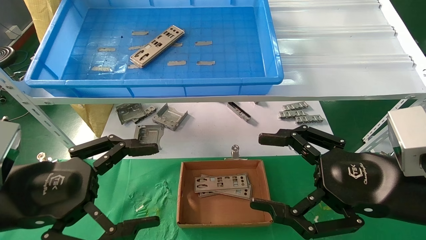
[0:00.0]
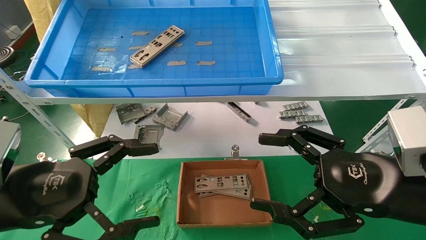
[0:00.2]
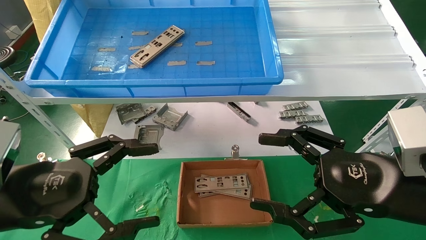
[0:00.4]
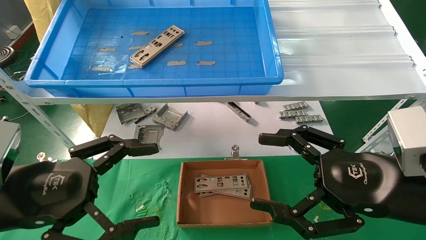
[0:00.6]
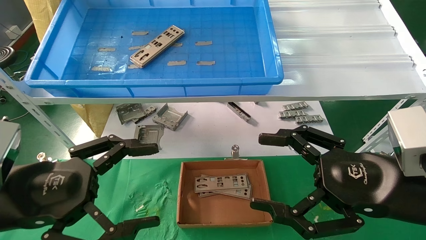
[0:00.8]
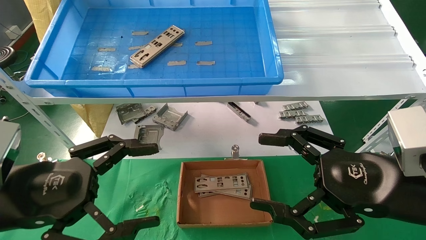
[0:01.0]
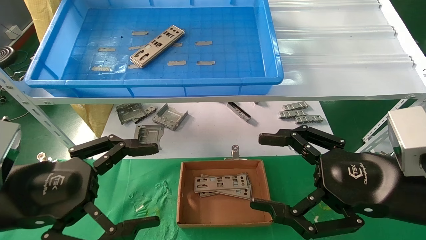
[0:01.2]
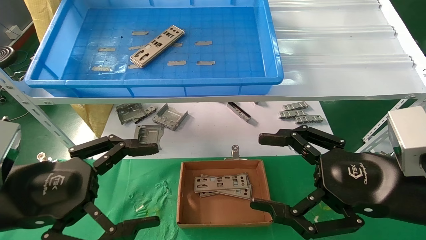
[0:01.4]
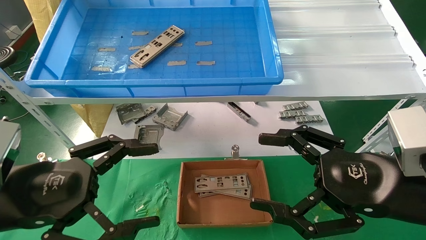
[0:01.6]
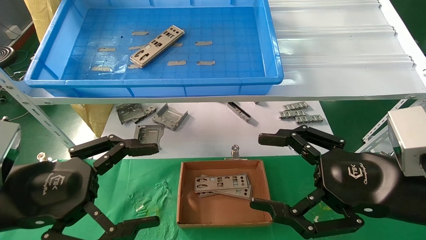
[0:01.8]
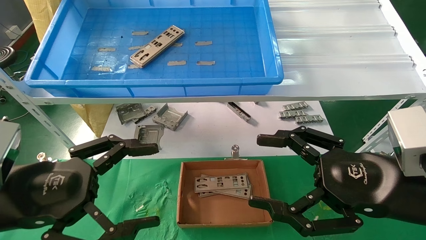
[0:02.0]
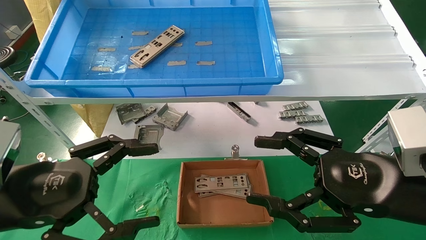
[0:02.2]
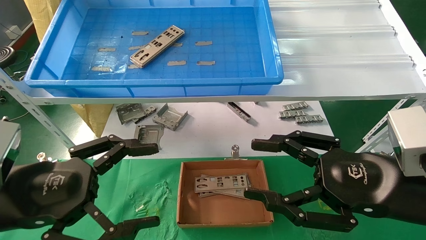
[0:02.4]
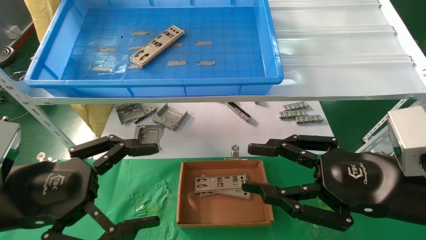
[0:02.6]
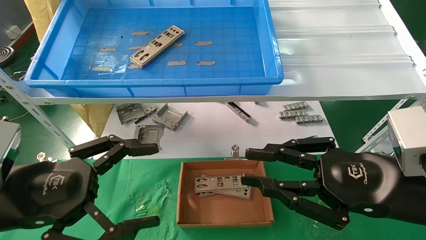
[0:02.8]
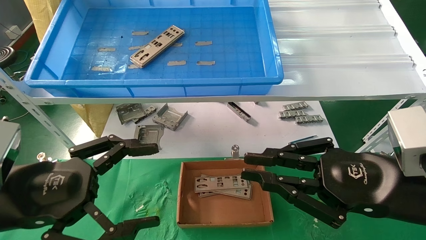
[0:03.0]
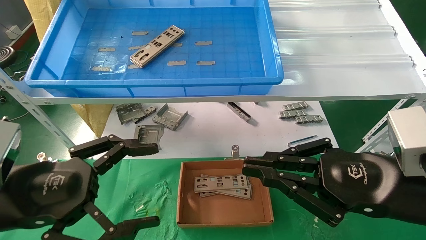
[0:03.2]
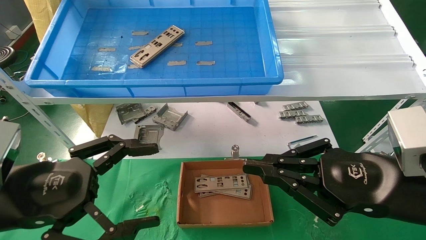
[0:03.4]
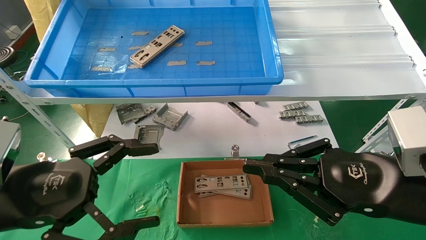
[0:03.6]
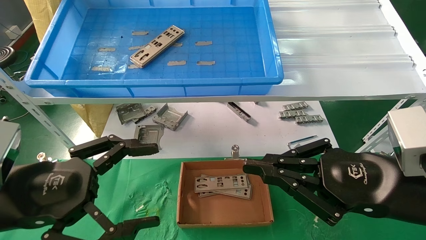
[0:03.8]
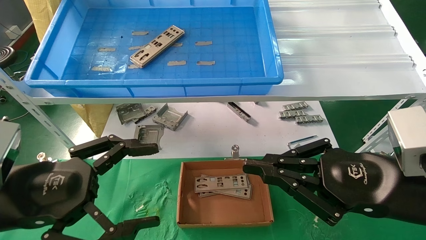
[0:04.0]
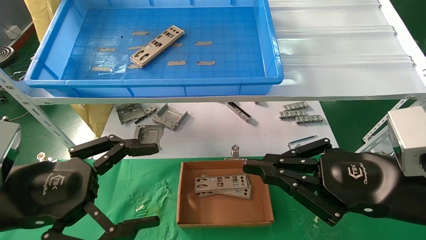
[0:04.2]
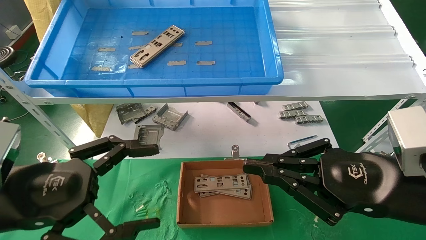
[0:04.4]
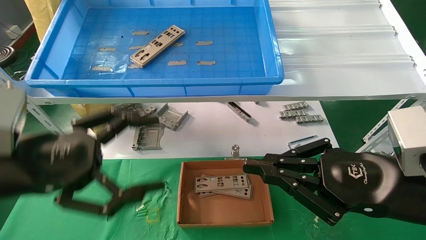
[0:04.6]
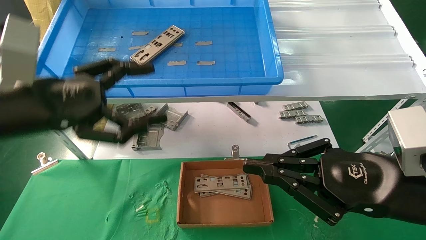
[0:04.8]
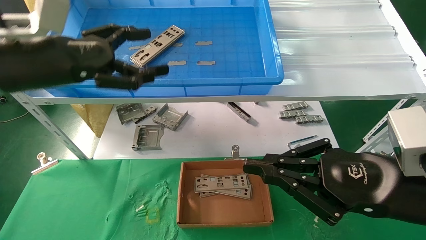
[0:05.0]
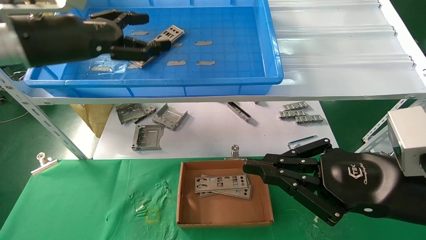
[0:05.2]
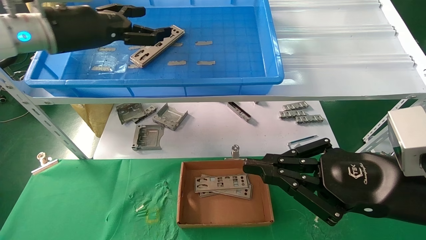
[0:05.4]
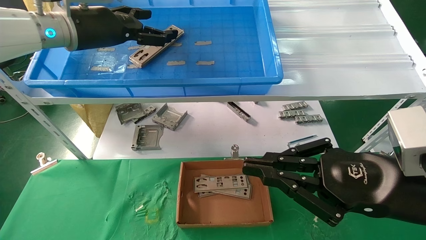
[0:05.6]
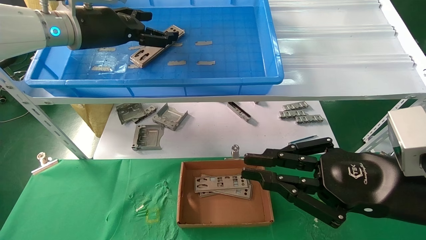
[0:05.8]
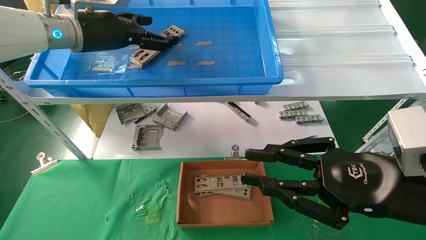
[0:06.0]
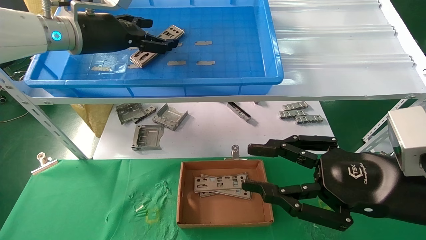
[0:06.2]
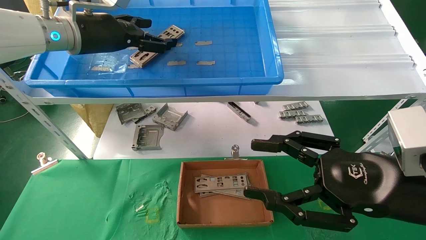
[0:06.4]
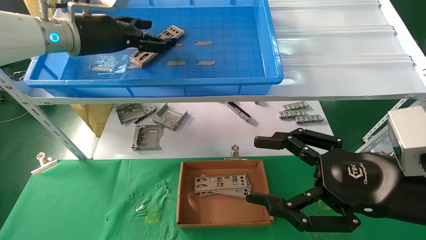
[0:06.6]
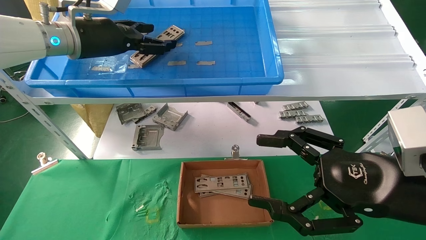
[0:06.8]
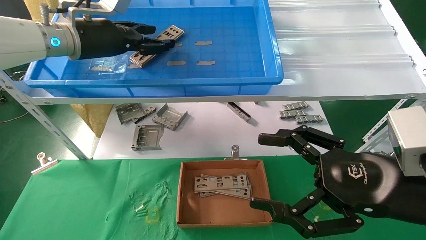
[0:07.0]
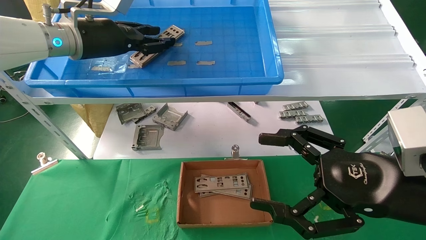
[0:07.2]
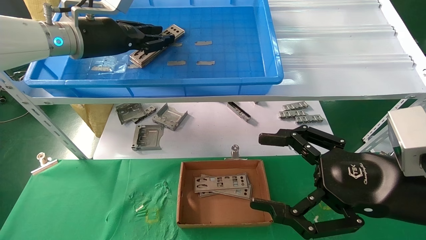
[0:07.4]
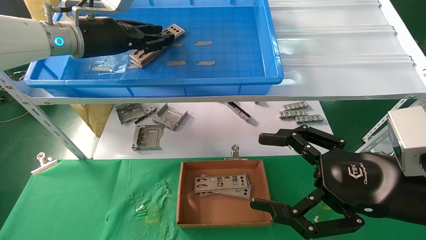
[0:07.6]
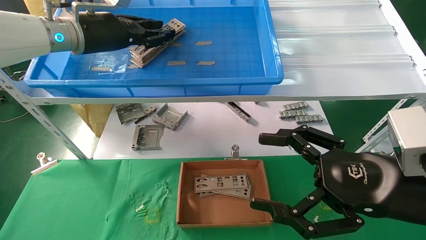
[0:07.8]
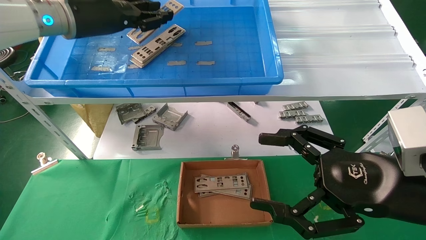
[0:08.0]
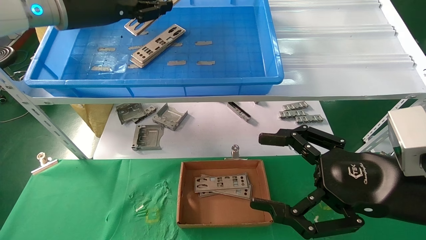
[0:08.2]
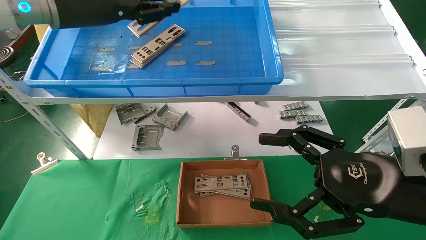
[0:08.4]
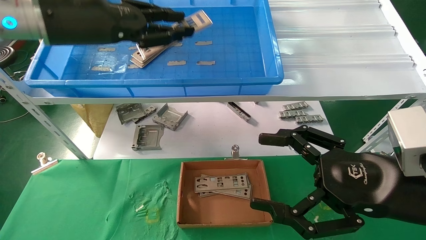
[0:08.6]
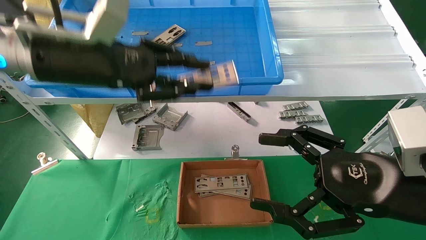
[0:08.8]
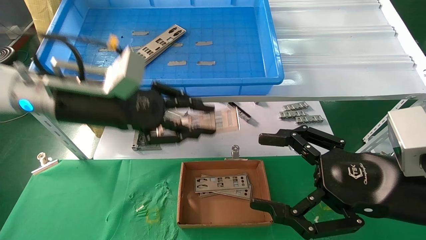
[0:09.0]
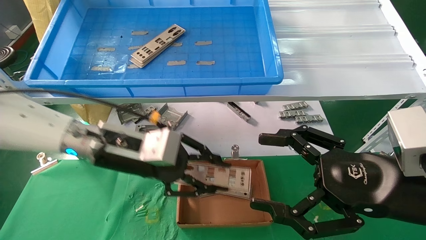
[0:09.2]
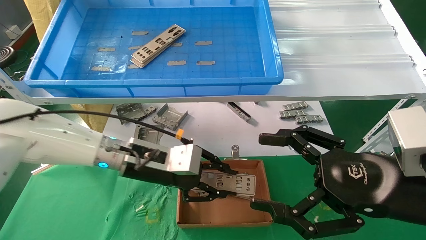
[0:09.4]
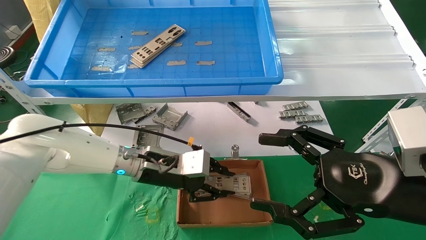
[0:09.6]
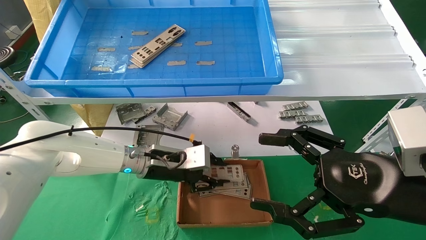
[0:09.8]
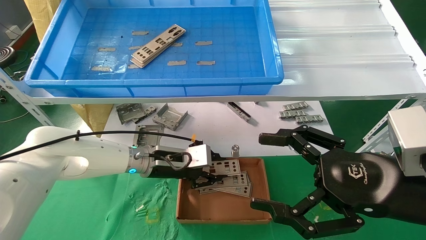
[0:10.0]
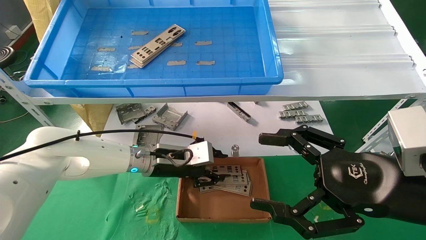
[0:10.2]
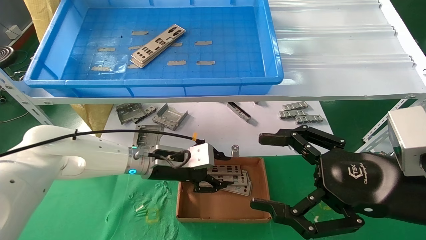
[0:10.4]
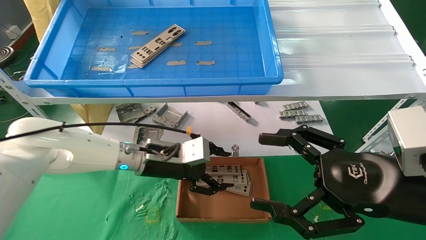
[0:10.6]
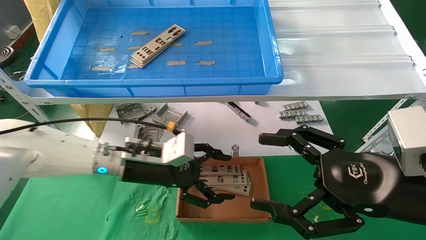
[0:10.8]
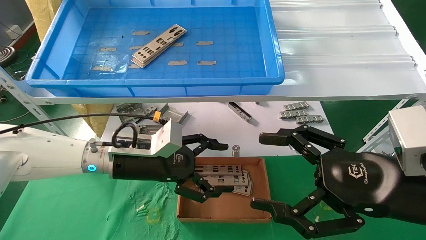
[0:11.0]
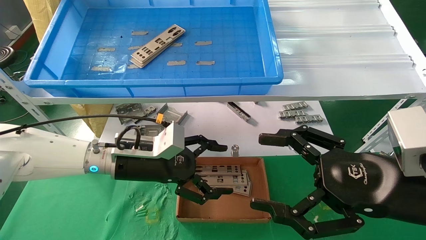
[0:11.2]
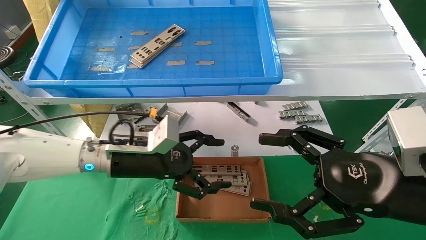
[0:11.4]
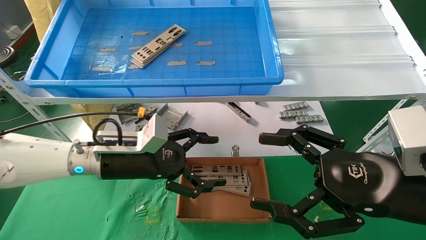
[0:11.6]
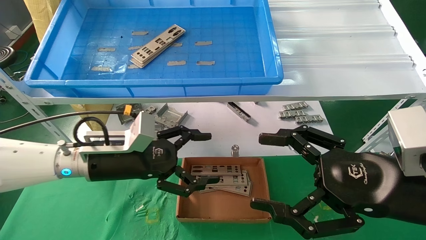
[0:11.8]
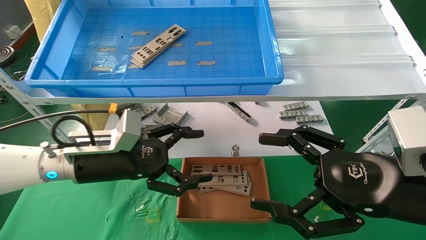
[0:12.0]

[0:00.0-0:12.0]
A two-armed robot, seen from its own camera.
Task of the whole recording: pick up the parts on the tray and put them in the cardboard box.
Step, 0:05.2 to 0:07.4: Pick up the IO bracket from the container box.
Step, 0:07.6 to 0:10.6: Place the IO bracket into the ingredient slot.
0:00.0 to 0:01.6: Both grippers stay put.
0:01.6 to 0:03.0: The right gripper closes.
0:03.0 to 0:04.4: Neither gripper changes place.
0:04.4 to 0:06.0: The left gripper moves forward and upward, about 30 cm.
0:06.0 to 0:07.6: The left gripper closes. Meanwhile the right gripper opens its fingers.
0:07.6 to 0:09.0: The left gripper travels downward and backward by roughly 15 cm.
0:09.0 to 0:10.4: The left gripper goes approximately 20 cm downward, forward and to the right.
0:10.4 to 0:12.0: The left gripper travels to the left and backward by roughly 10 cm, and opens up.

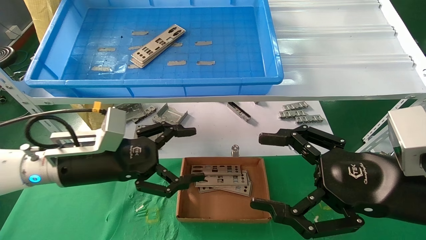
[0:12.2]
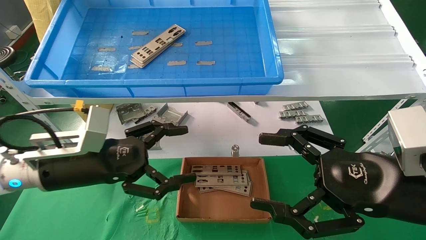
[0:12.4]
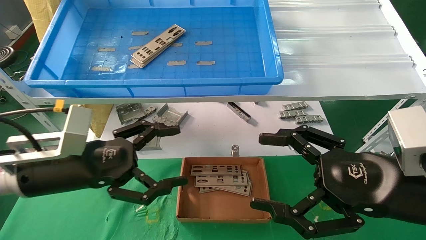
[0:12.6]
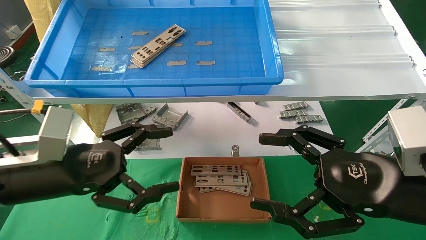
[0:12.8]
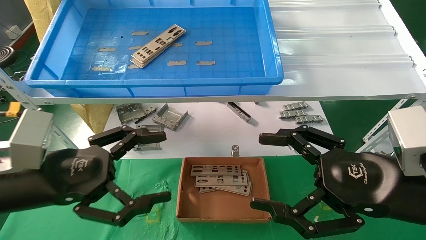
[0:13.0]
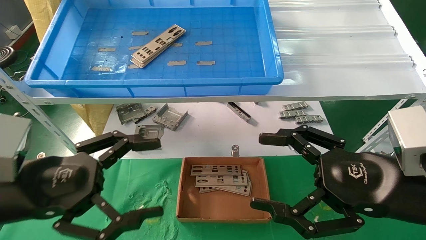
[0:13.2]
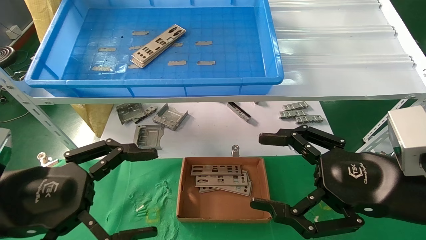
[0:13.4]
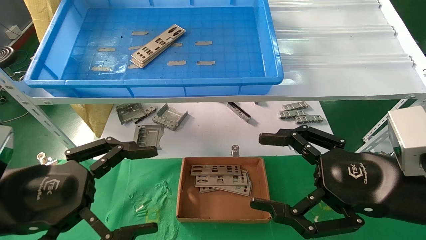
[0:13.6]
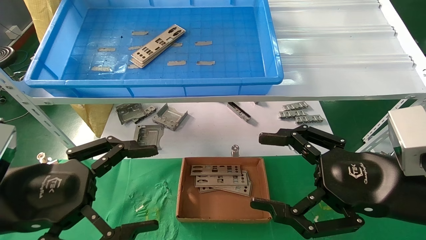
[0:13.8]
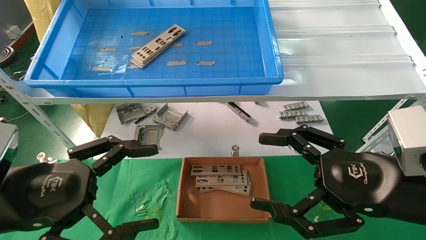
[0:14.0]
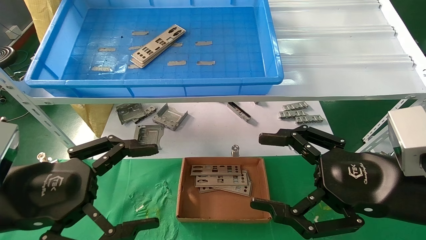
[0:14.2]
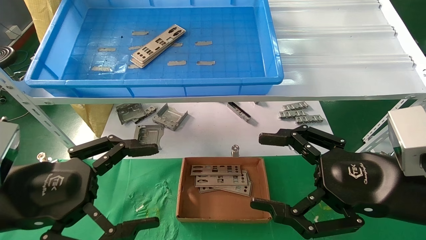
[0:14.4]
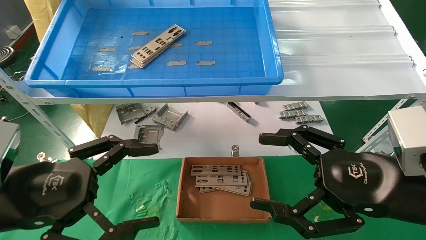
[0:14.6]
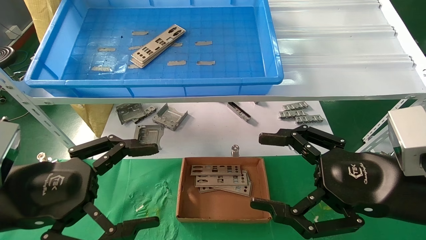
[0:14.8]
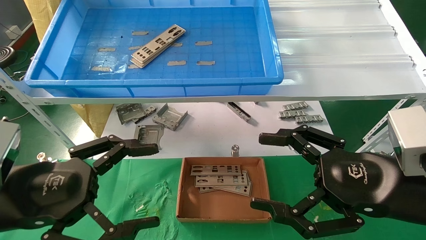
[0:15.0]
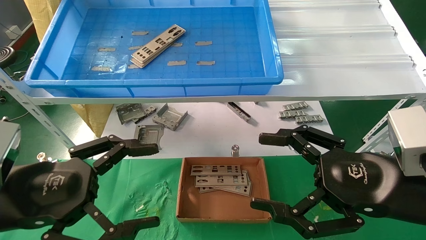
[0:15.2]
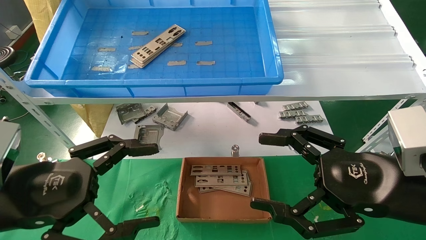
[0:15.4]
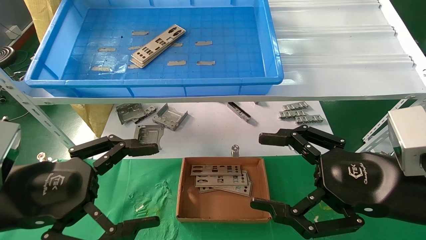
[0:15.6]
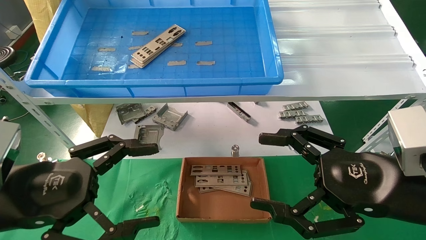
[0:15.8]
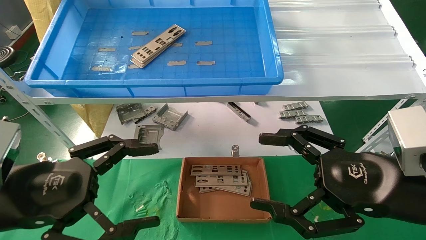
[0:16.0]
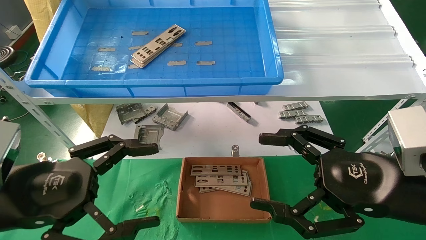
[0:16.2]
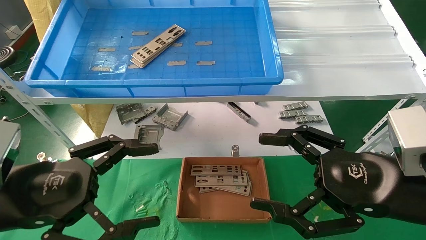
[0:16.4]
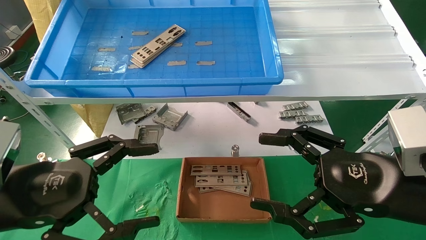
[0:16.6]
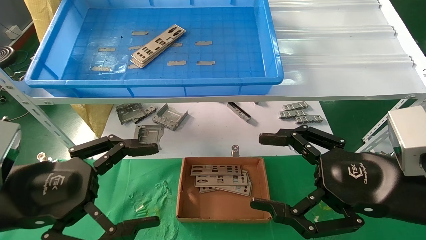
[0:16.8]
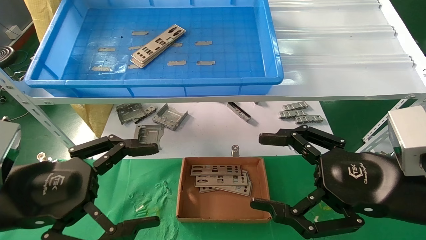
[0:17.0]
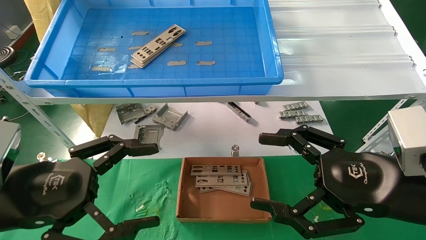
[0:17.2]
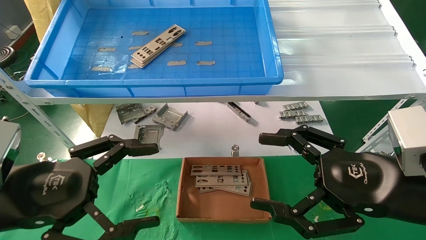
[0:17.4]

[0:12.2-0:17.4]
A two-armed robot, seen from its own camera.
Task of the whole recording: pick up the parts on the tray and put them in the cardboard box.
0:12.2 to 0:14.0: The left gripper travels backward by roughly 15 cm.
0:14.0 to 0:17.4: Both grippers stay about where they are.
